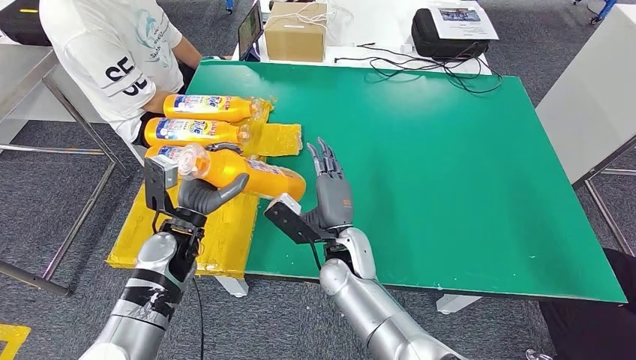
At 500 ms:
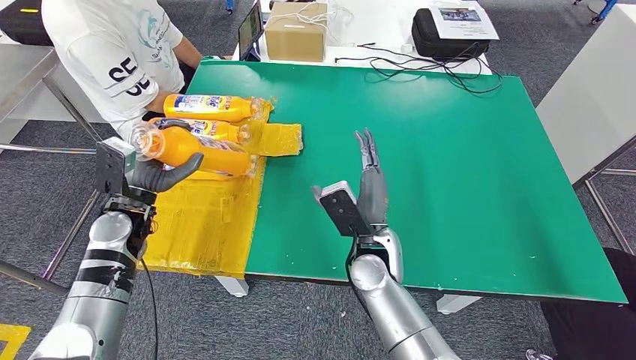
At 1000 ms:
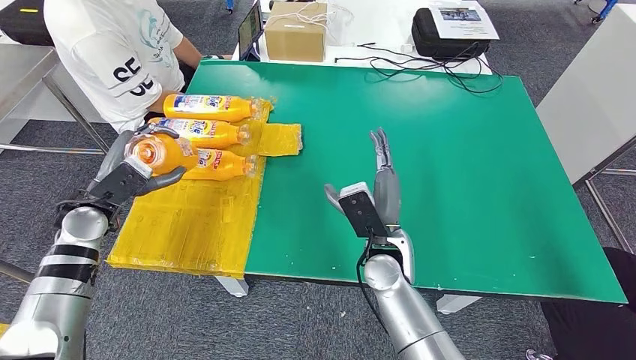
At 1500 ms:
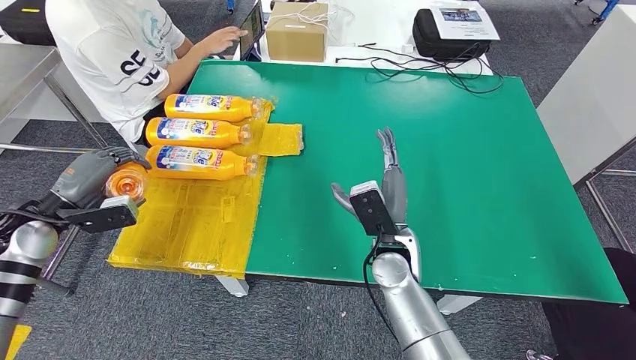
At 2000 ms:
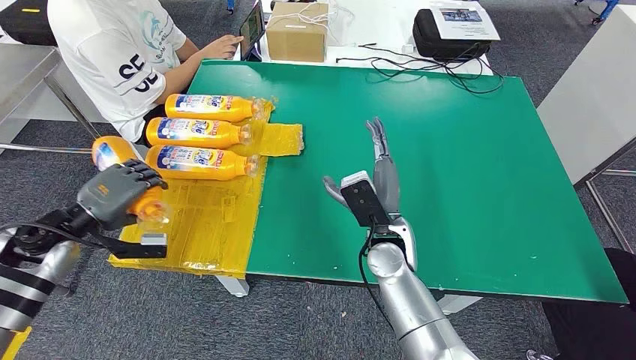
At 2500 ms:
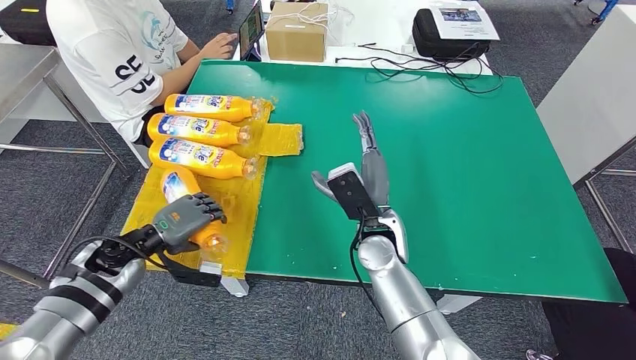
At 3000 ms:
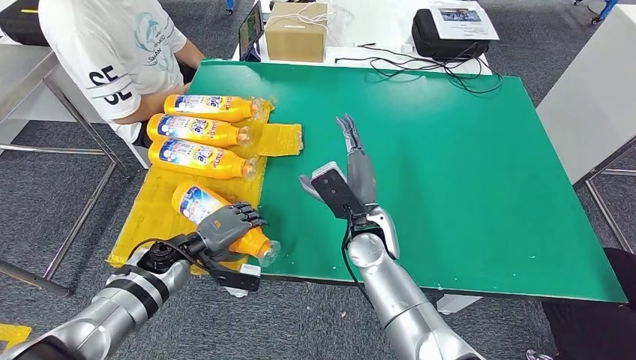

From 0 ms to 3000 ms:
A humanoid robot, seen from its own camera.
Step, from 0 ms to 3000 ms: Flip the fast-moving consumer goods bottle to the front side.
